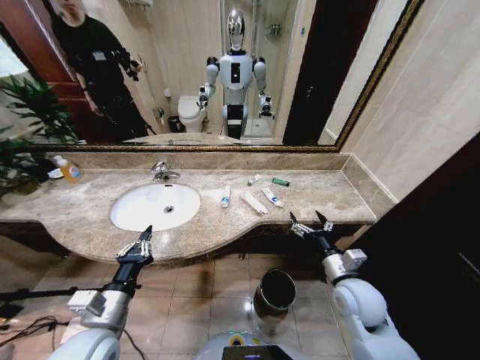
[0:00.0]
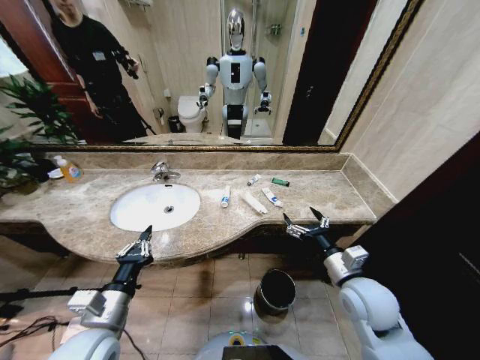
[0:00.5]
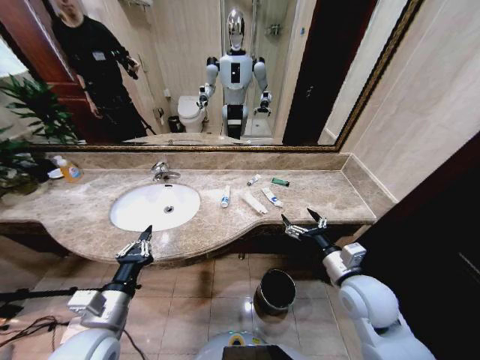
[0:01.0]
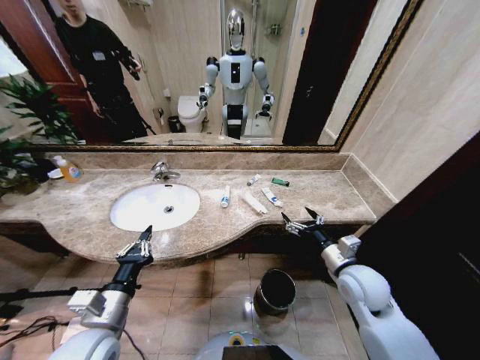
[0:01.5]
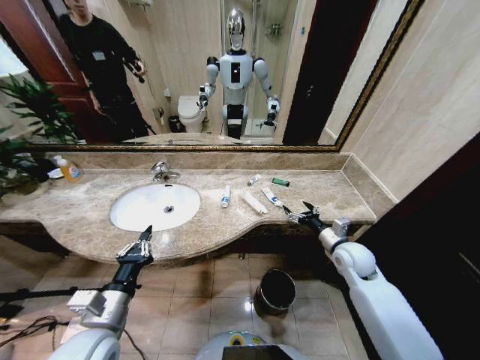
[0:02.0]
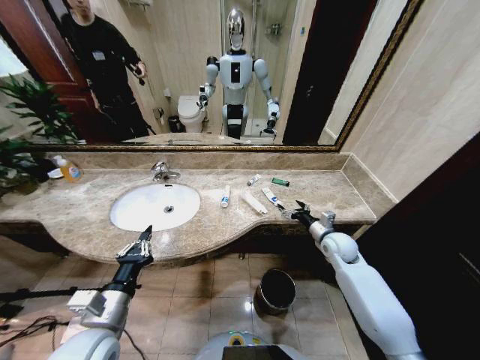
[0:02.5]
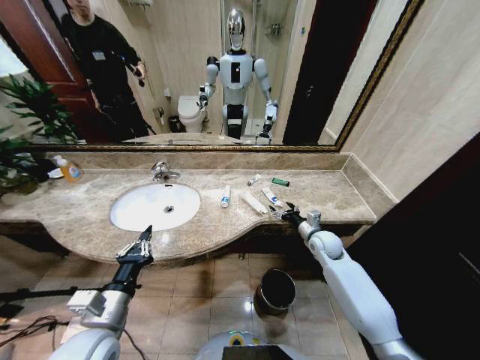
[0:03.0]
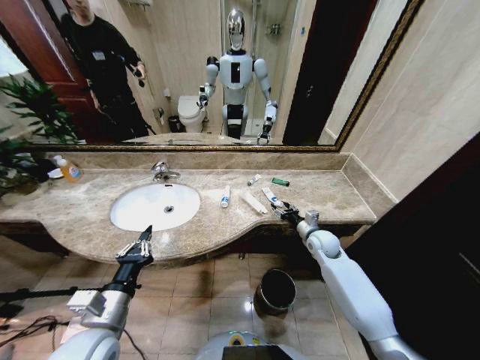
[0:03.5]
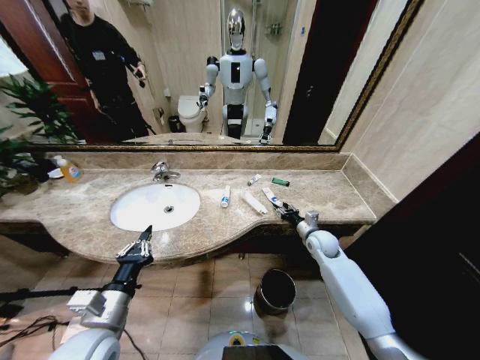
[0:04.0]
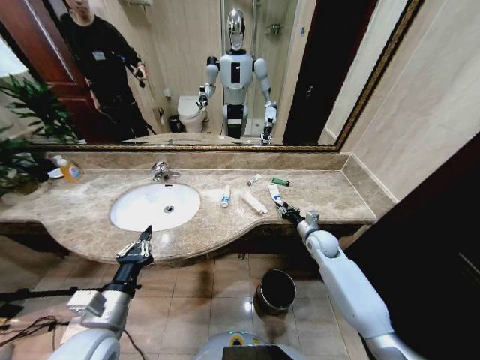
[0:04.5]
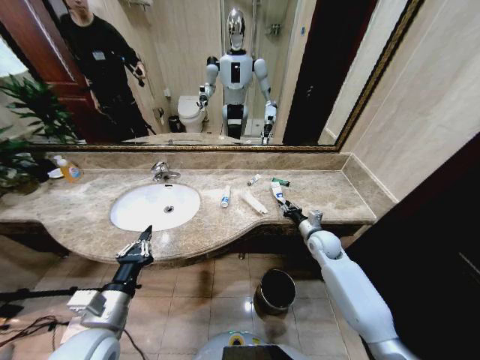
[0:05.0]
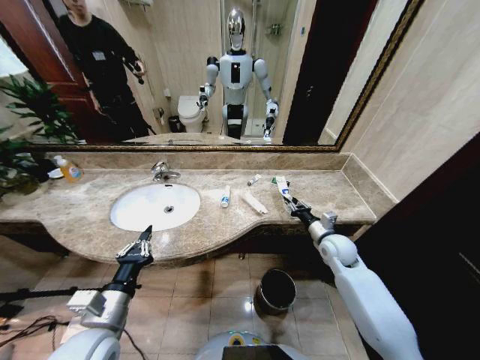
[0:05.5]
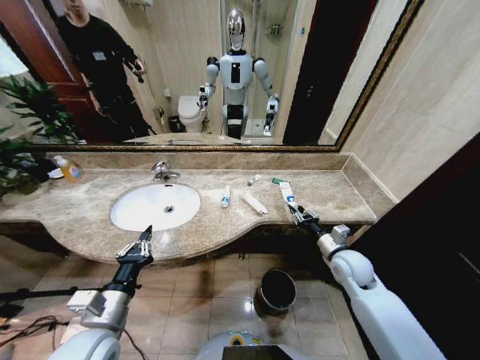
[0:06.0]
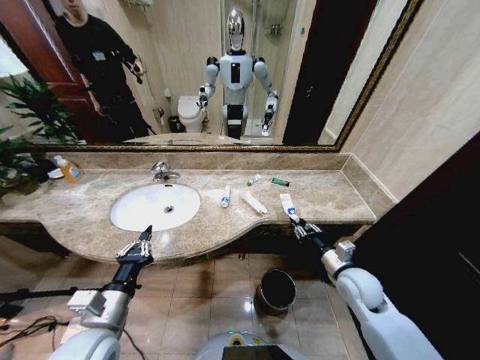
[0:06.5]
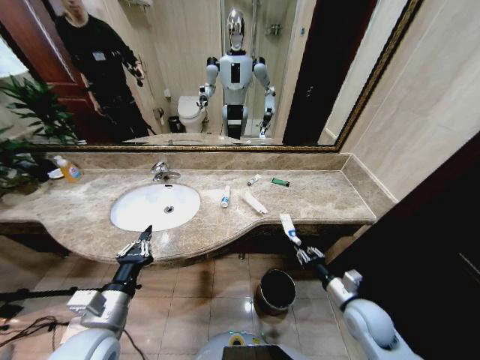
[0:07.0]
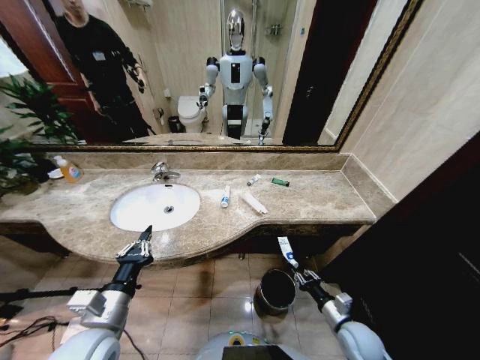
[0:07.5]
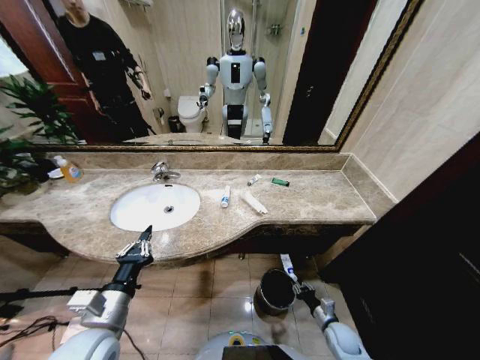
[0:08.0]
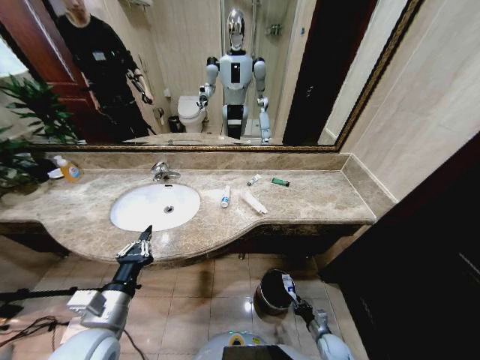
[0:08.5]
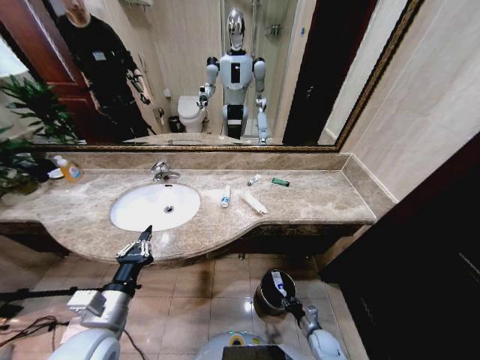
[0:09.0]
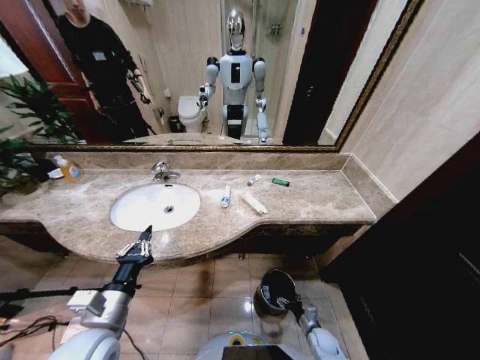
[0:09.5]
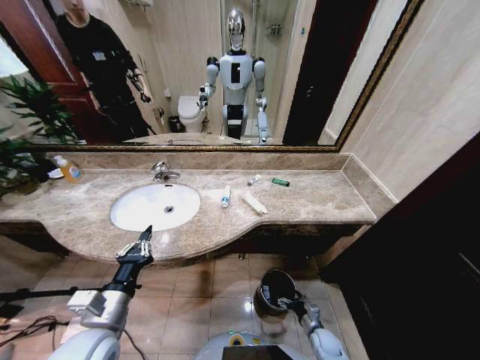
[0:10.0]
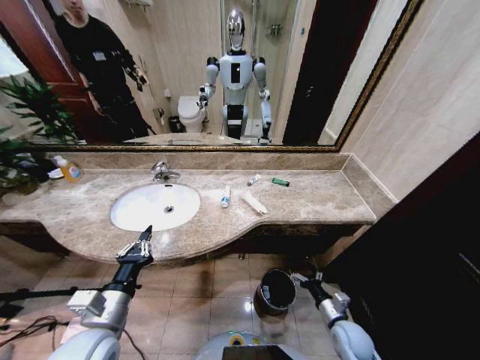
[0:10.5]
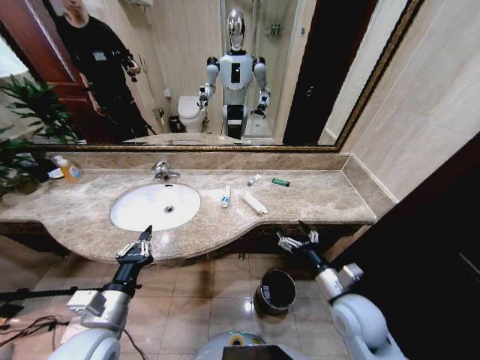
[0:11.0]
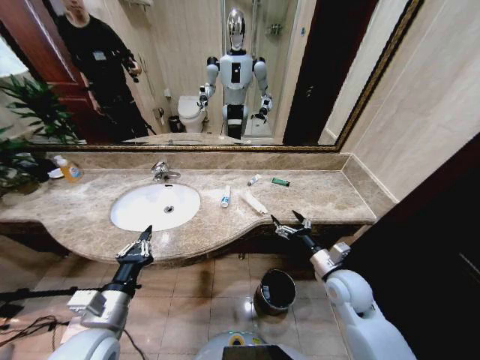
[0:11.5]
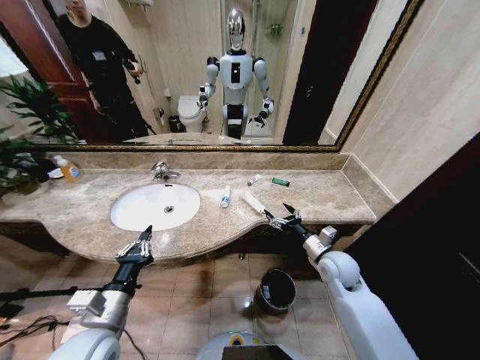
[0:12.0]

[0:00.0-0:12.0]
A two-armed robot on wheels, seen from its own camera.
Task of the whole recording: Pick up the trash from the sink and place it in the trash bin.
0:02.0 to 0:04.0: The right gripper travels forward and downward by approximately 10 cm, and closes its fingers.
0:04.0 to 0:06.0: The right gripper shifts some 10 cm backward.
0:06.0 to 0:08.0: The right gripper goes approximately 30 cm downward and backward.
0:08.0 to 0:10.0: The right gripper moves downward, approximately 5 cm, and opens its fingers.
0:10.0 to 0:12.0: The right gripper is displaced upward and forward by roughly 35 cm.

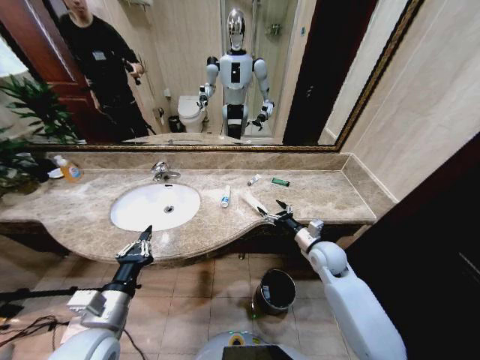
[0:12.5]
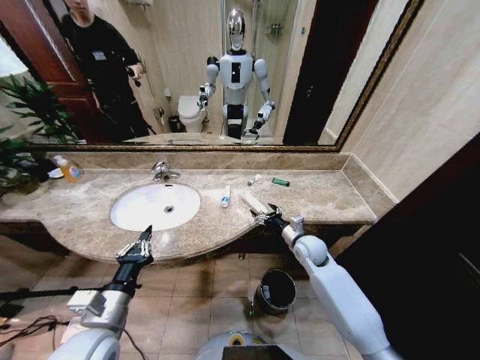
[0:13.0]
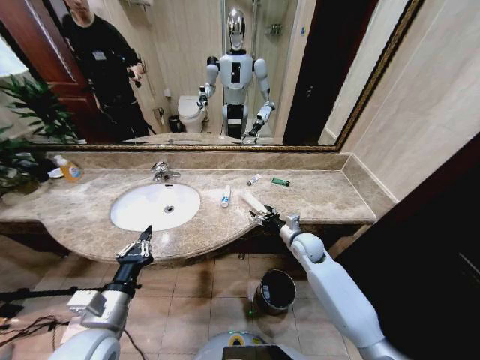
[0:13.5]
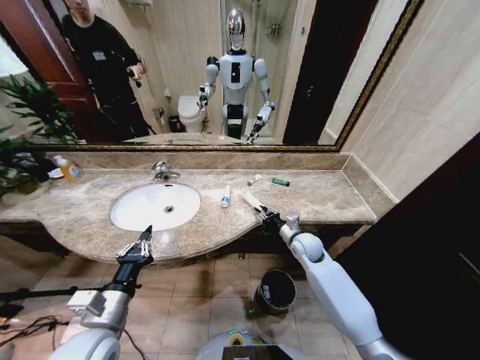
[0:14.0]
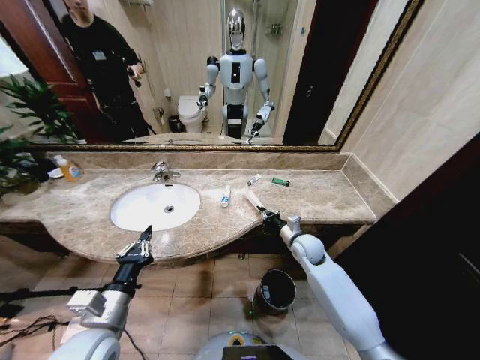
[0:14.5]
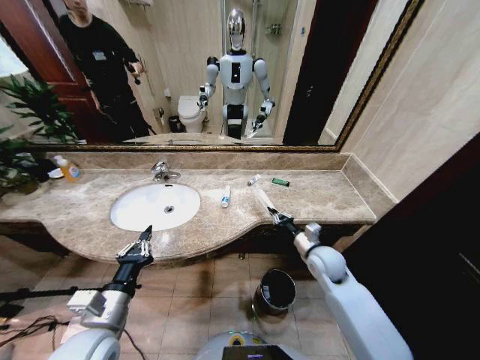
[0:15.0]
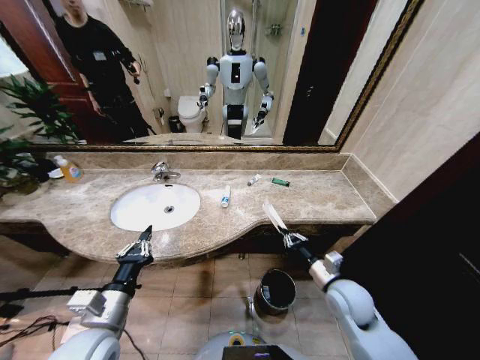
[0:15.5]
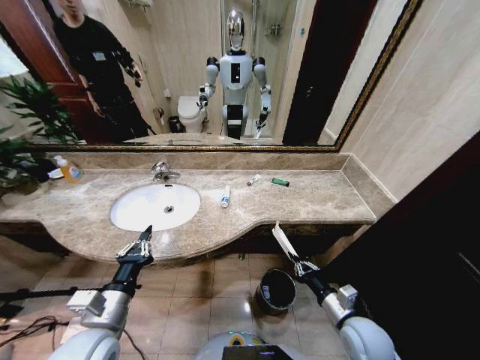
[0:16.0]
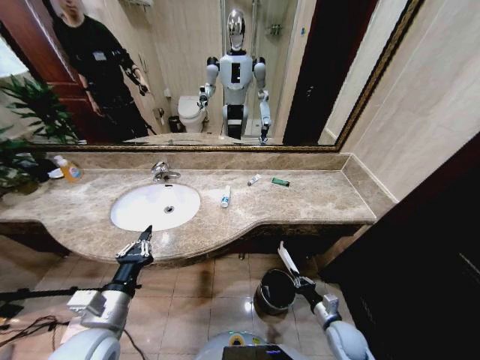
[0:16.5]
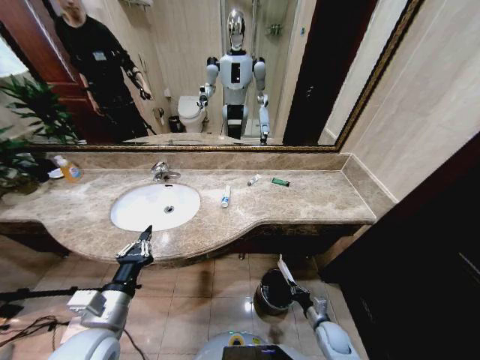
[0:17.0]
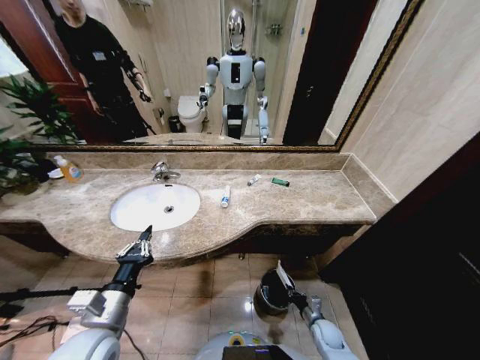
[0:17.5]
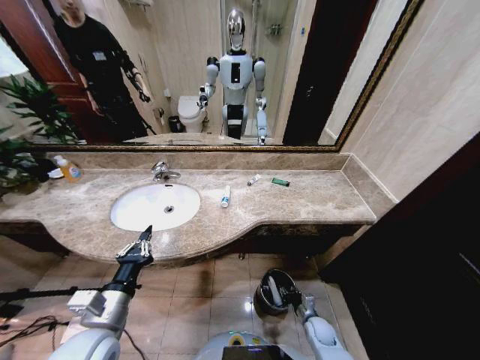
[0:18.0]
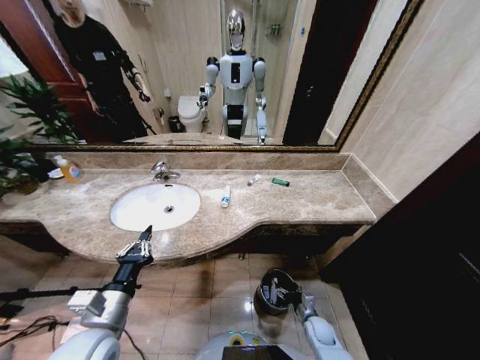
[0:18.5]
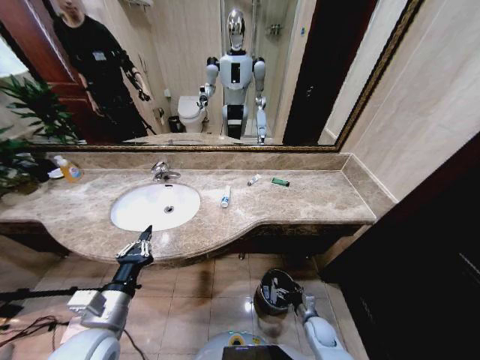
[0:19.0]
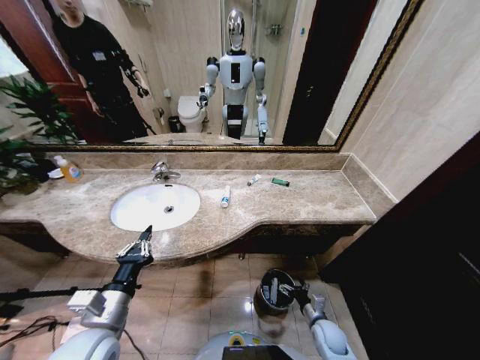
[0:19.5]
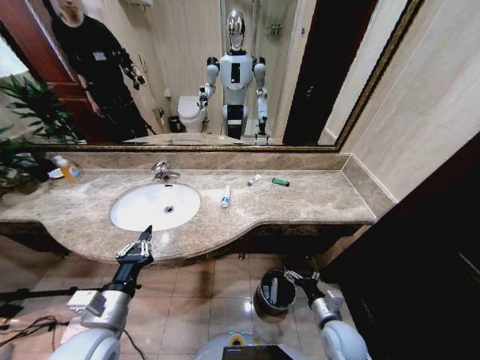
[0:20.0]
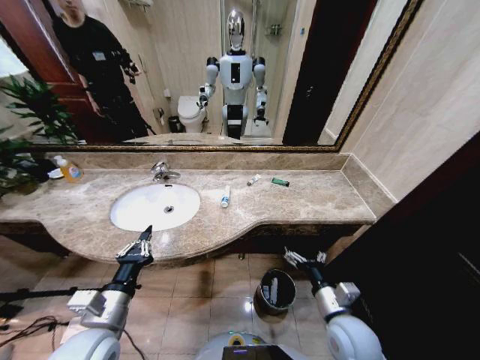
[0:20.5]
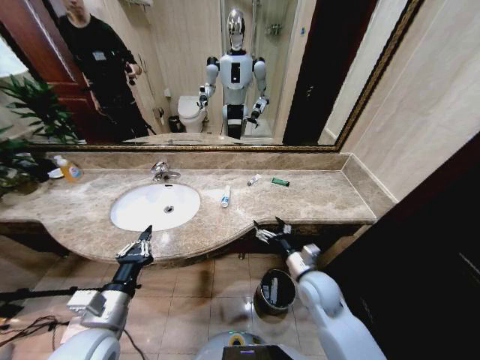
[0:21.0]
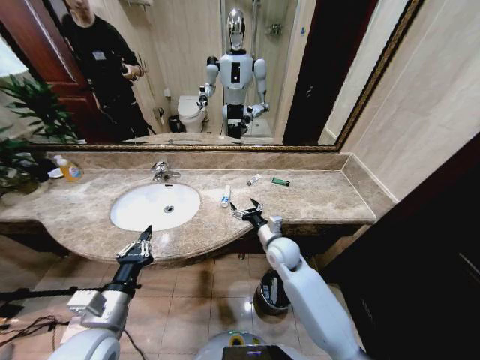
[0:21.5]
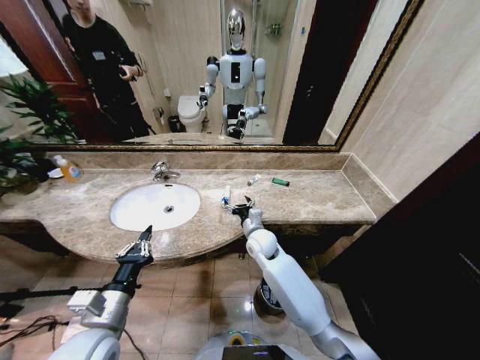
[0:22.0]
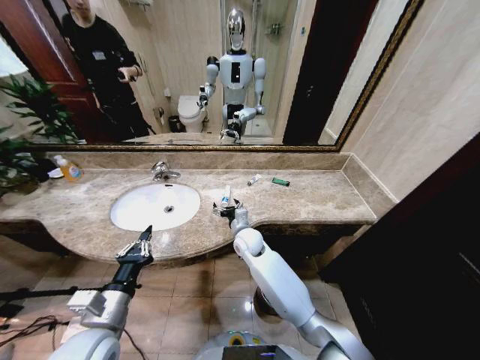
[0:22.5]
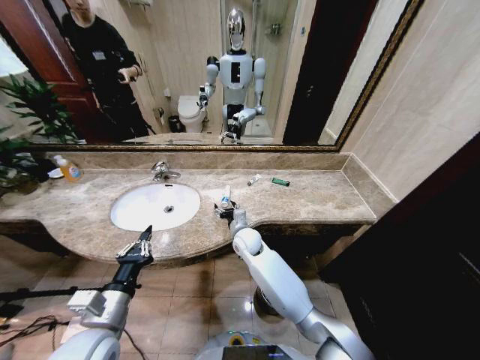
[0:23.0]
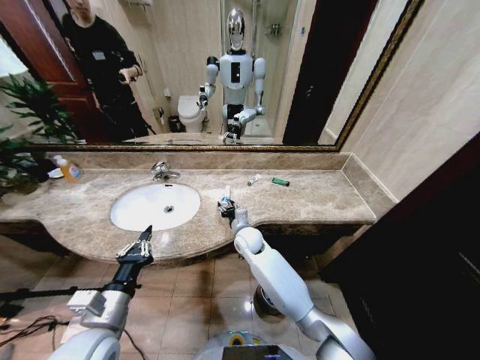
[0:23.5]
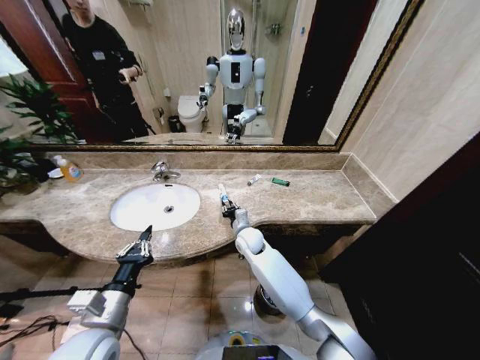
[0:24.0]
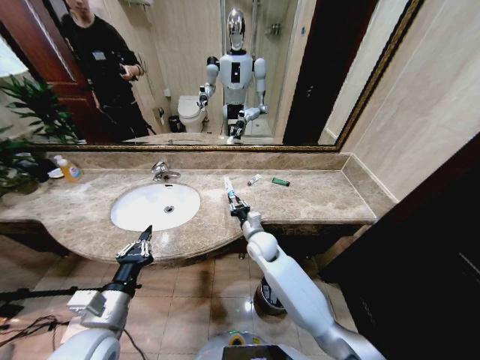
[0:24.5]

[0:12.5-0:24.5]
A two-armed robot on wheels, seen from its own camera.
Task of the whole recording: Pick up the trash from the sink and place it in the trash bin.
0:12.5 to 0:14.5: The right gripper ends up some 5 cm from where it was, and closes its fingers.
0:14.5 to 0:16.5: The right gripper travels backward and downward by some 25 cm.
0:16.5 to 0:18.5: The right gripper is displaced downward by roughly 10 cm, and opens.
0:18.5 to 0:20.5: The right gripper heads upward, covering roughly 25 cm.
0:20.5 to 0:22.5: The right gripper shifts approximately 35 cm forward and to the left.
0:22.5 to 0:24.5: The right gripper closes up.

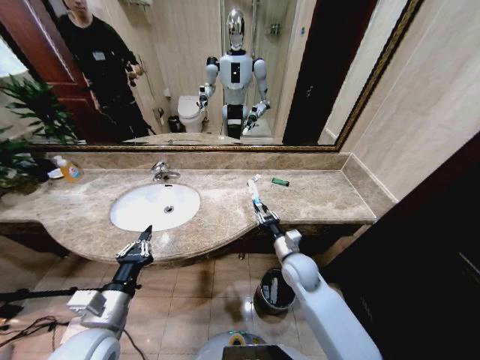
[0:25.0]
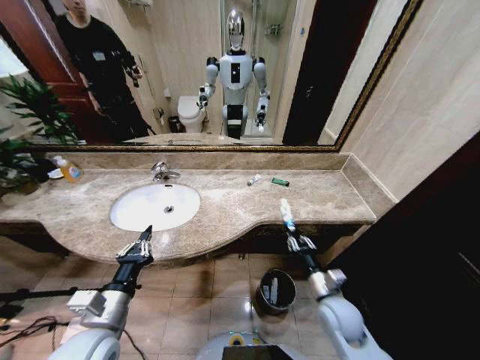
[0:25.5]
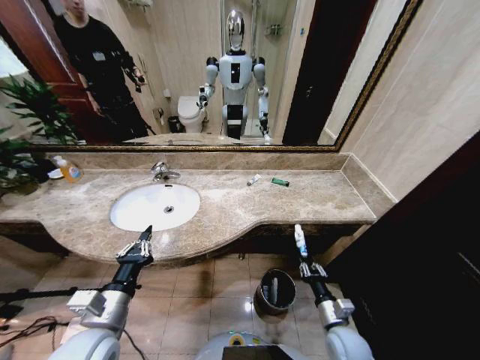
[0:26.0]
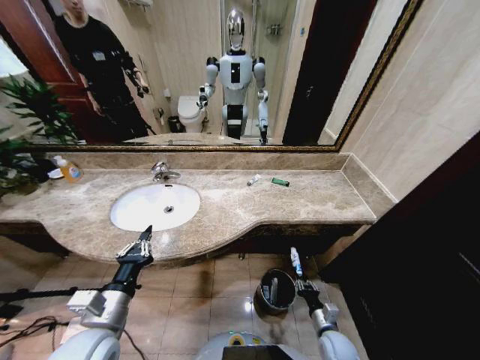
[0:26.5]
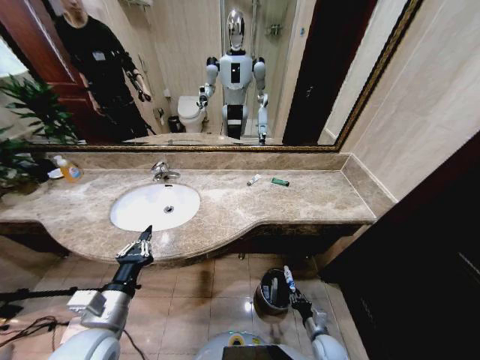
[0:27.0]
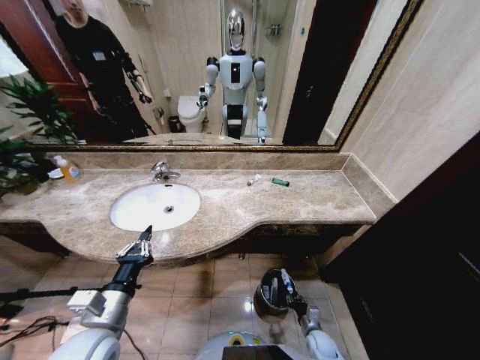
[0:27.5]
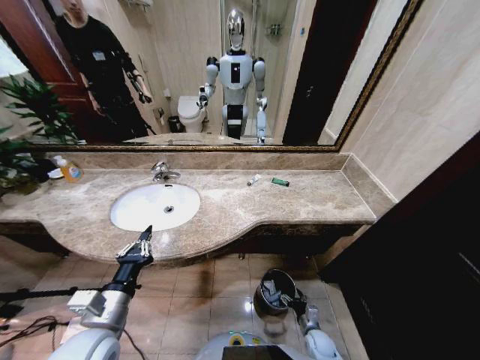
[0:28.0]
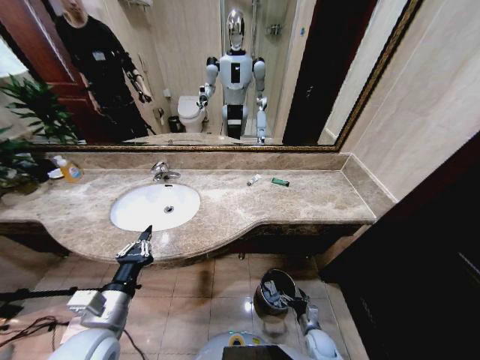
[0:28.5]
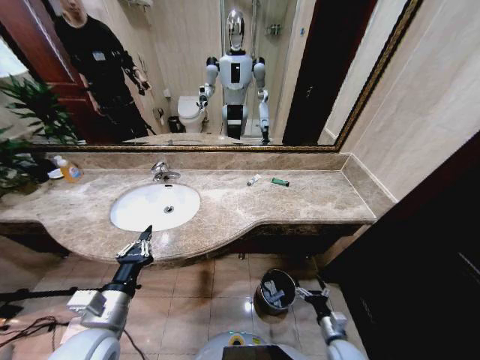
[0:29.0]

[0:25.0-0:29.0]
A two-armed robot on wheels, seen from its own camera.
Task of the whole recording: Pick up the trash from the sink and place it in the trash bin.
0:25.0 to 0:27.0: The right gripper shifts about 35 cm downward, backward and to the right.
0:27.0 to 0:29.0: The right gripper is displaced upward by approximately 5 cm, and opens its fingers.
